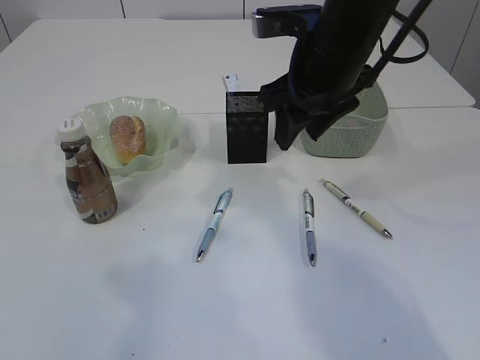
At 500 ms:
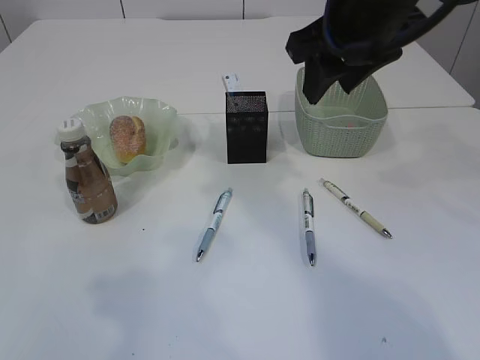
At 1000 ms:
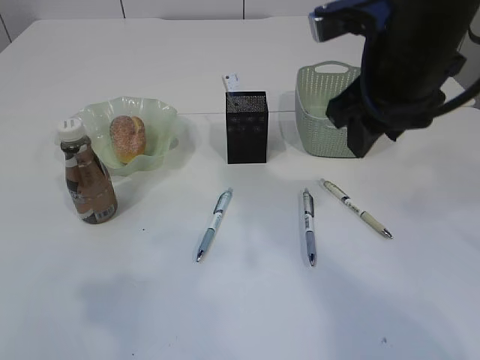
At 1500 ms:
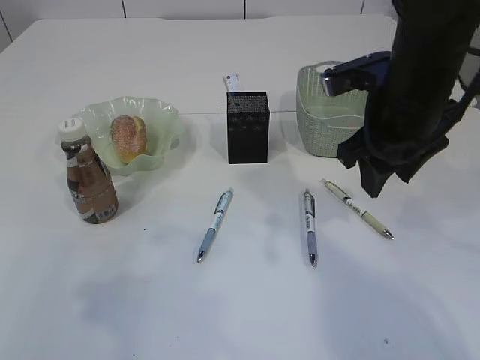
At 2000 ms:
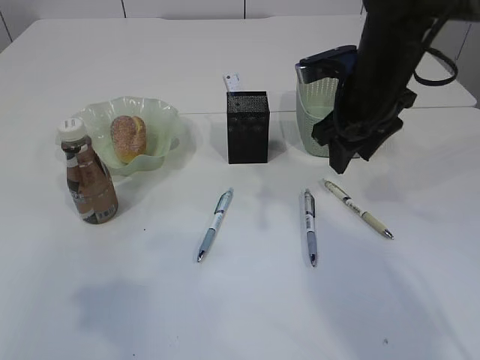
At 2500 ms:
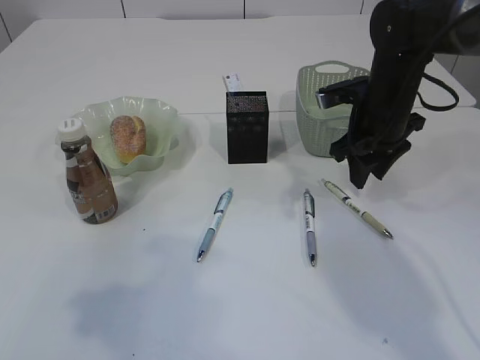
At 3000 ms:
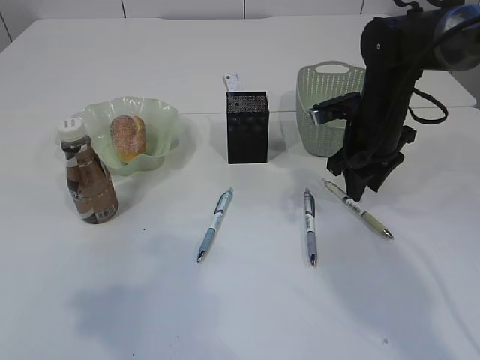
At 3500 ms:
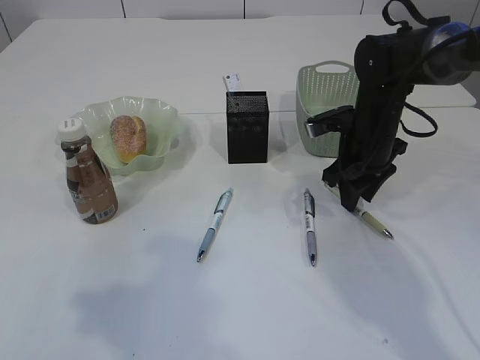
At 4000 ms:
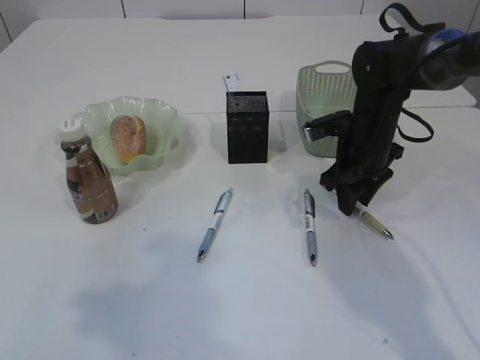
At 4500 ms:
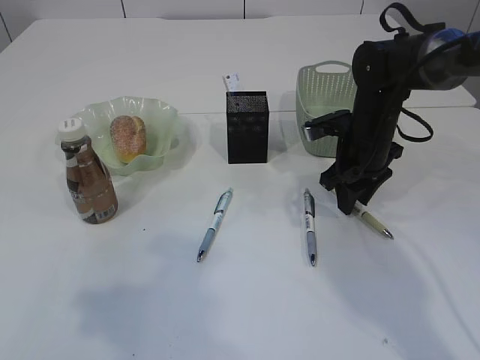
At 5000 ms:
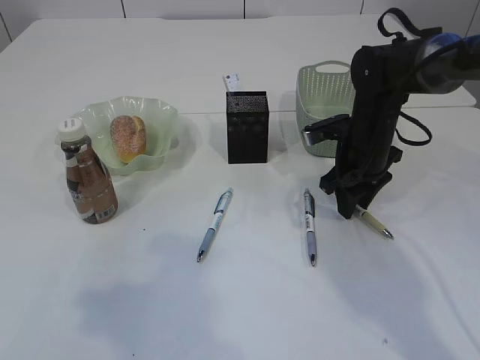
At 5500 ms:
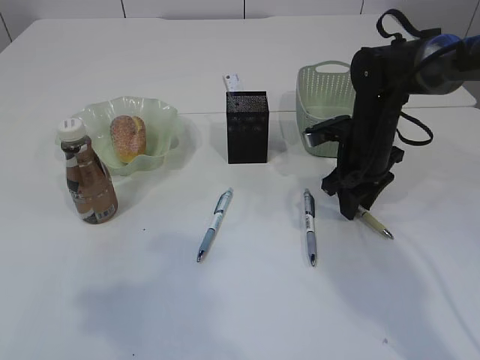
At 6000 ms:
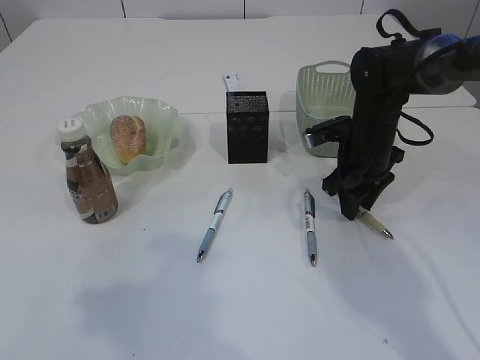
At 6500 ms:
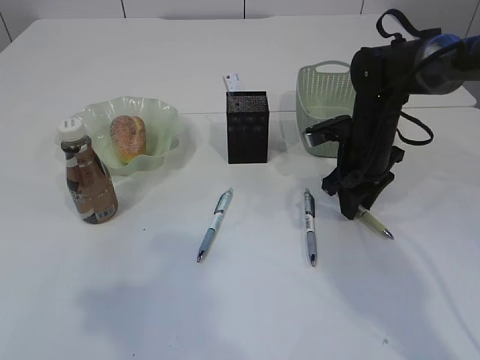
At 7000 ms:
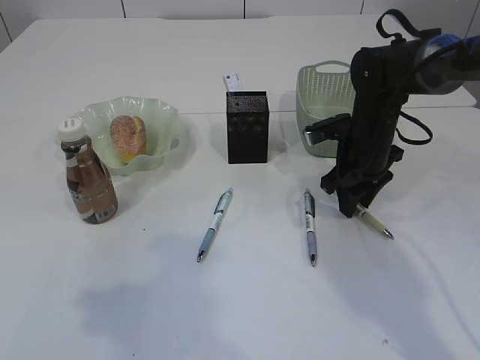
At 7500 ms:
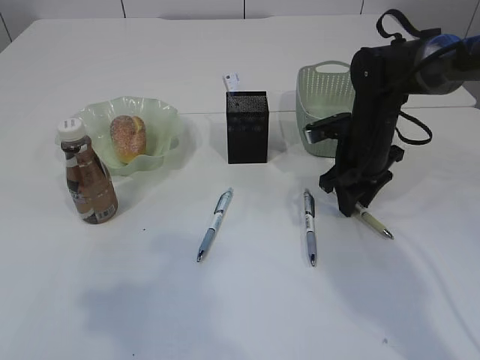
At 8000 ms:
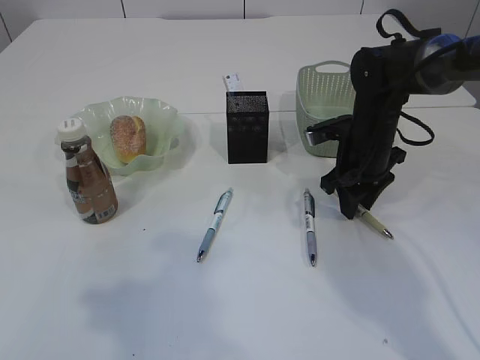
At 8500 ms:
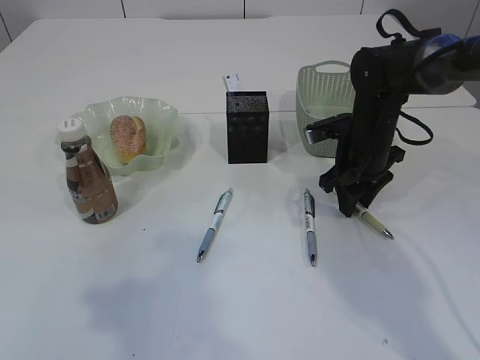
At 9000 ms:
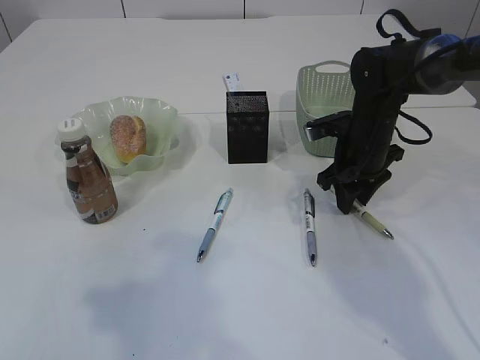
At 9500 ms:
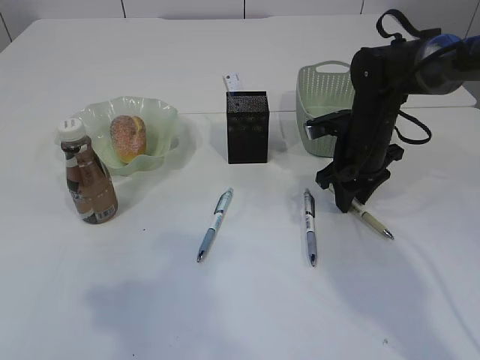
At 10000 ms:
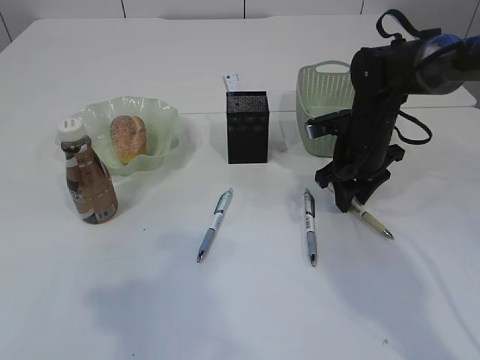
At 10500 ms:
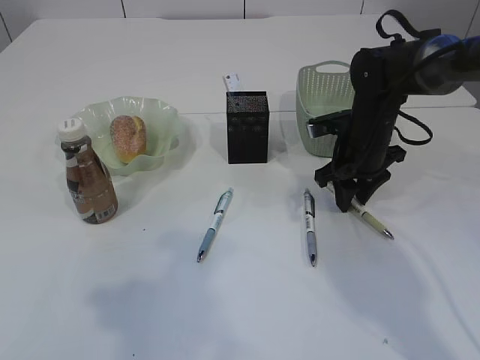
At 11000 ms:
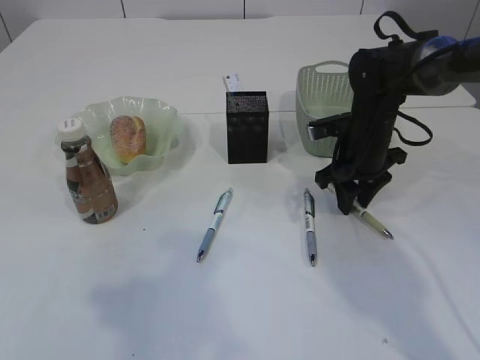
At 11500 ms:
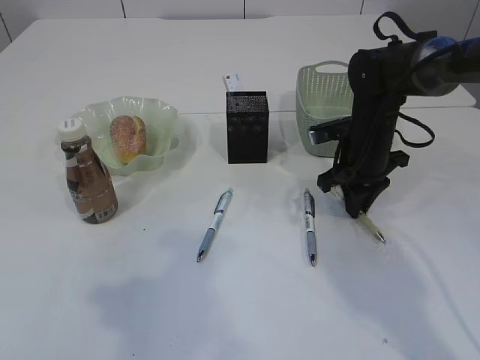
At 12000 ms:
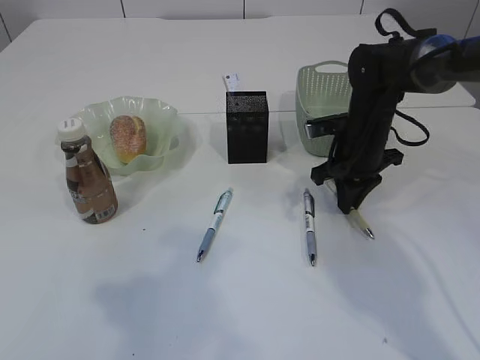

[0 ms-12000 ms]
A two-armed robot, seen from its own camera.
0 ms to 2000 ms: The right gripper shifts about 10 cm to the right and downward.
2000 ms to 4000 ms: The right gripper travels downward by approximately 10 cm.
4000 ms to 8000 ms: Both grippers stay put.
8000 ms to 10000 ms: The grippers make only small movements.
10000 ms to 12000 ms: The right gripper closes.

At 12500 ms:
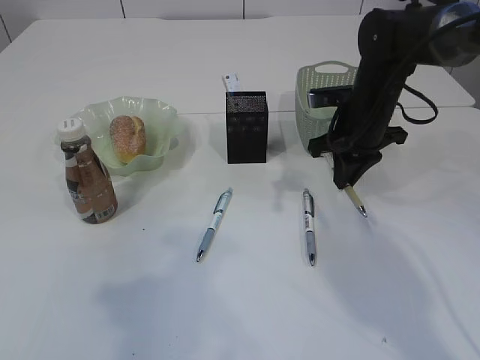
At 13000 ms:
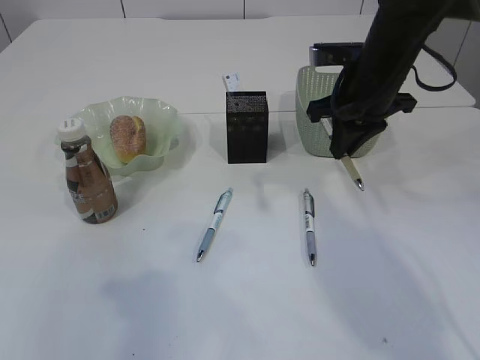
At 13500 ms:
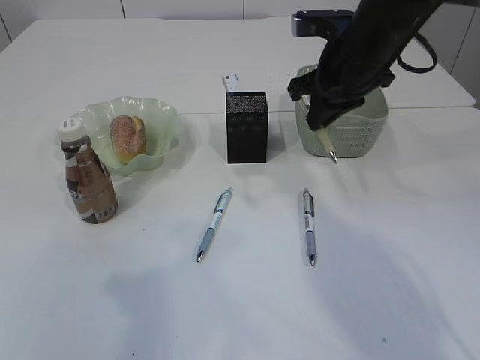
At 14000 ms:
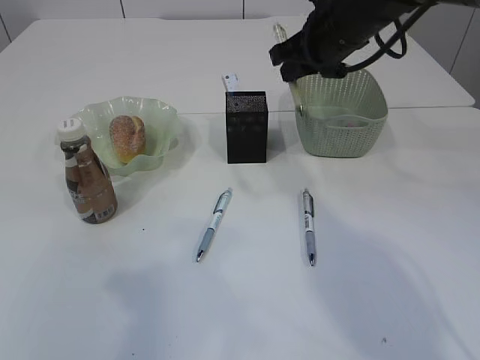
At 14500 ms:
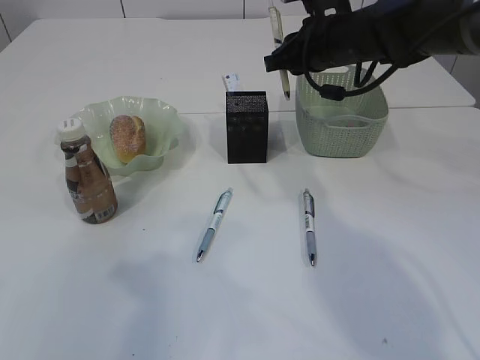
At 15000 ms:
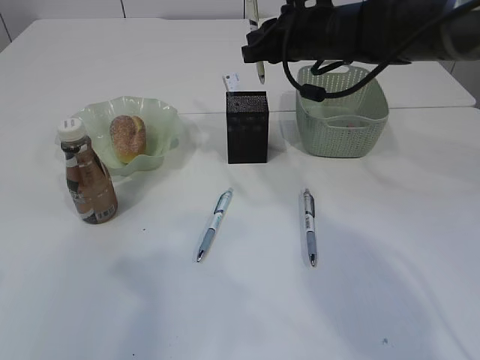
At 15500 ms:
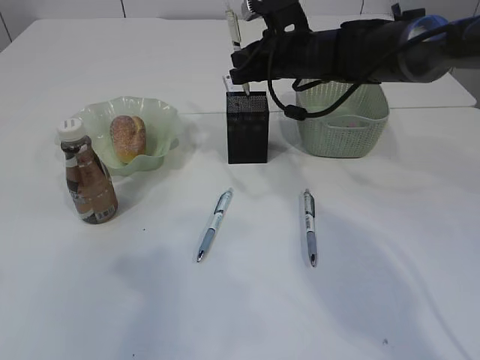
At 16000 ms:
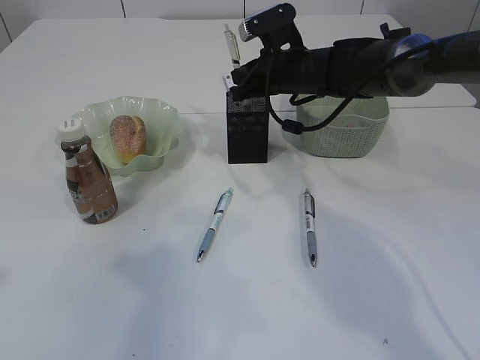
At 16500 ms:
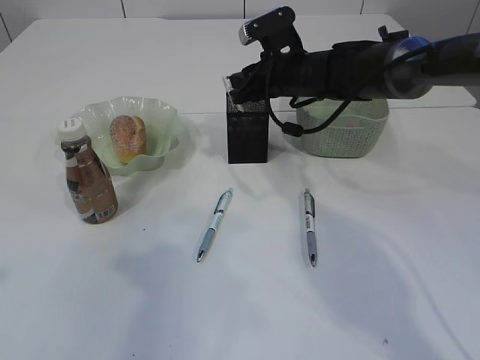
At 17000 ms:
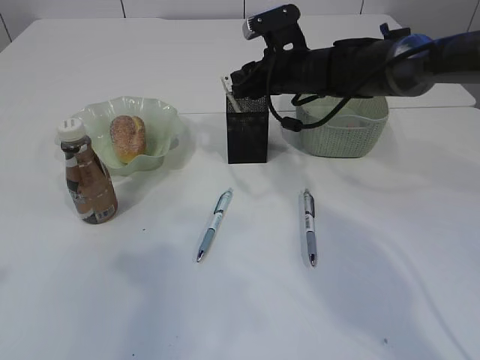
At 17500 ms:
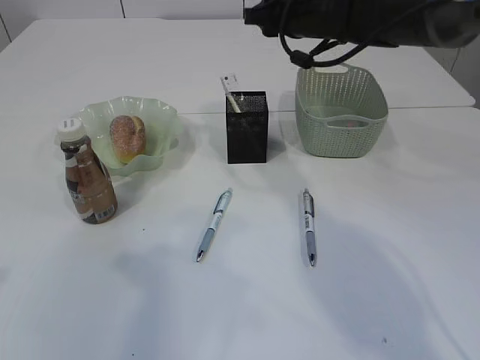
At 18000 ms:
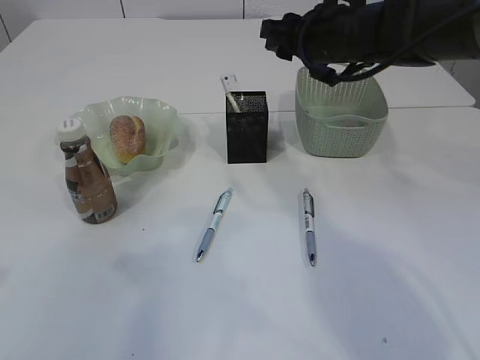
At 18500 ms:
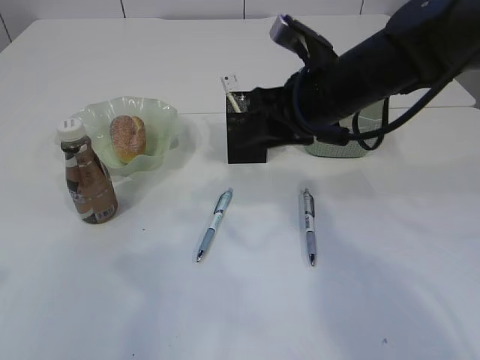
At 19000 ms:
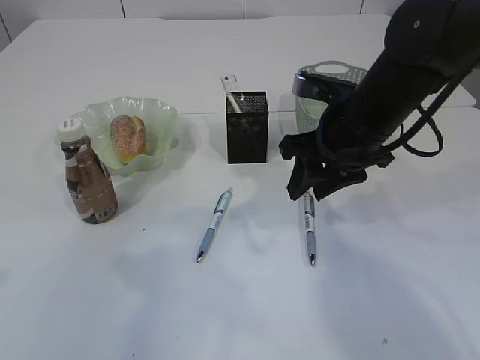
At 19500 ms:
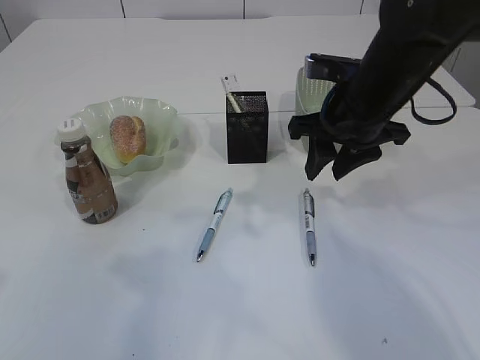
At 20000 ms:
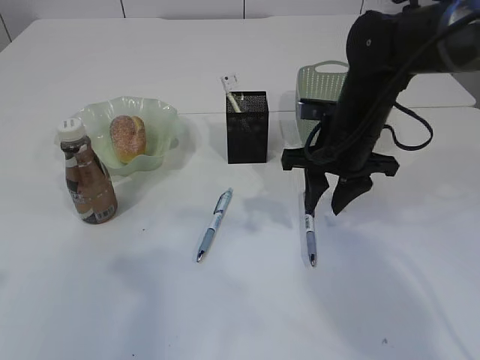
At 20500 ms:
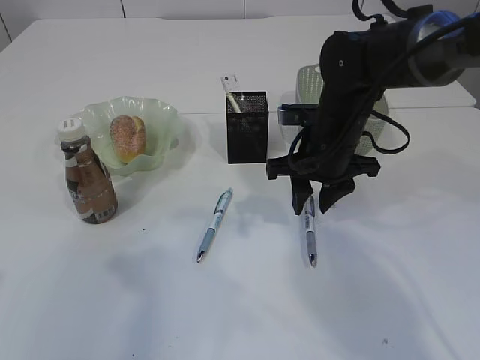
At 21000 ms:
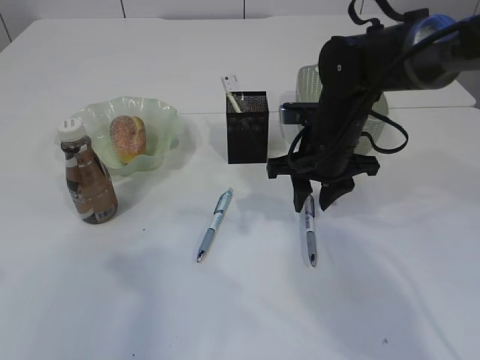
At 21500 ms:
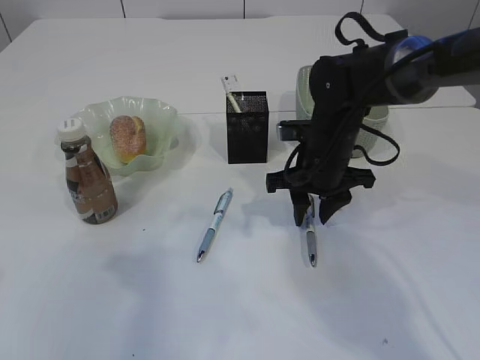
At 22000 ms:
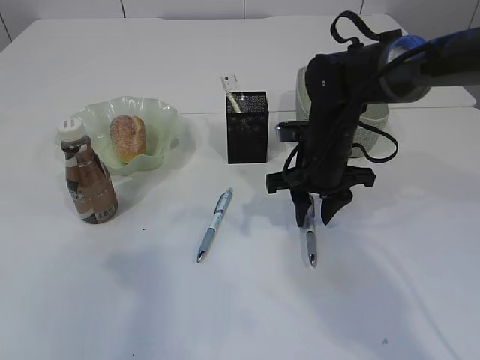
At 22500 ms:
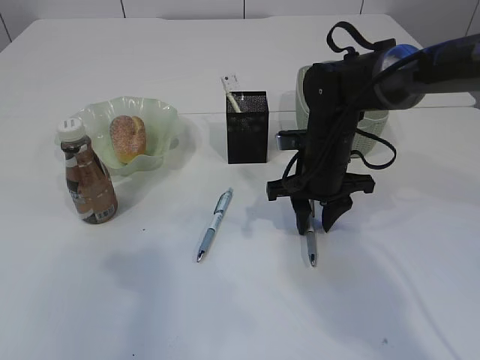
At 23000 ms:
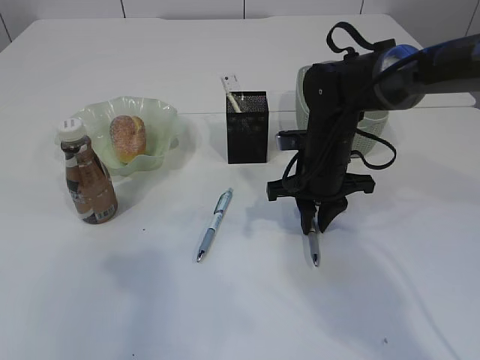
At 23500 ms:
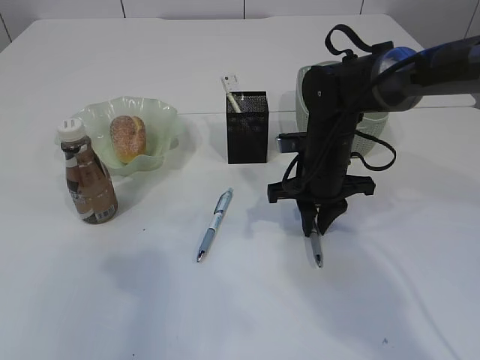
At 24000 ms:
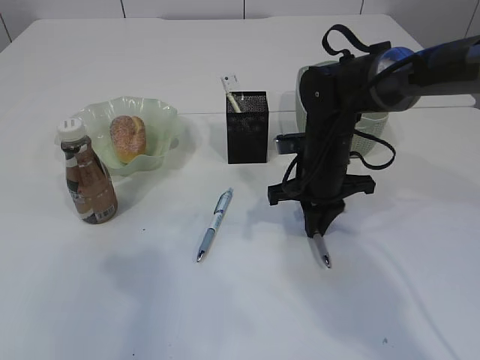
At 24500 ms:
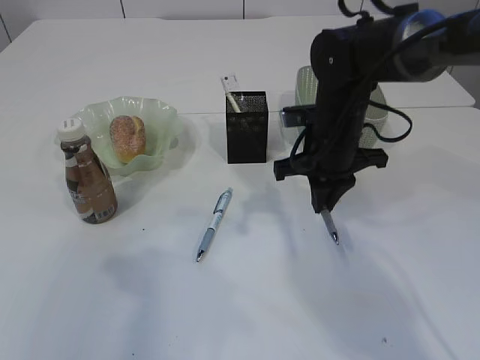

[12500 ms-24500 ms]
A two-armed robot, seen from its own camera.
Step, 13500 ms to 18000 ms: Place the pen into the pen holder.
12500 ms to 14500 ms: The right gripper goes some 10 cm upward.
14500 ms to 16500 ms: The right gripper travels downward by about 5 cm.
16500 ms to 18500 ms: The right gripper is displaced backward by some 10 cm.
18500 ms to 20500 ms: The right gripper travels downward by approximately 5 cm.
20500 ms to 22500 ms: The grippers move only a little.
22500 ms to 24500 ms: The right gripper closes.

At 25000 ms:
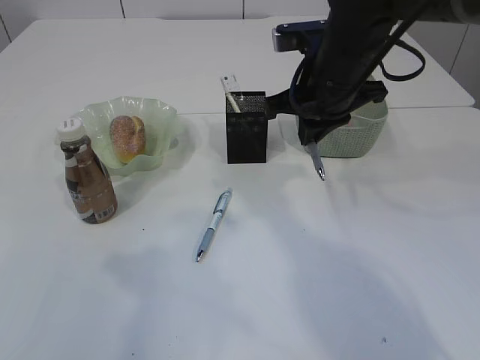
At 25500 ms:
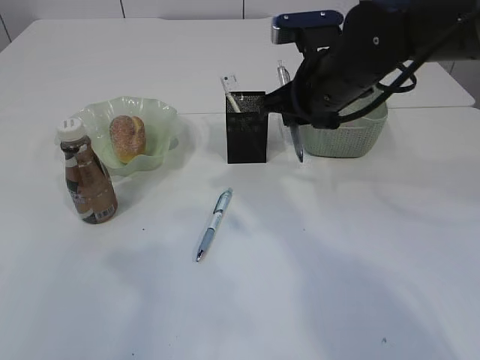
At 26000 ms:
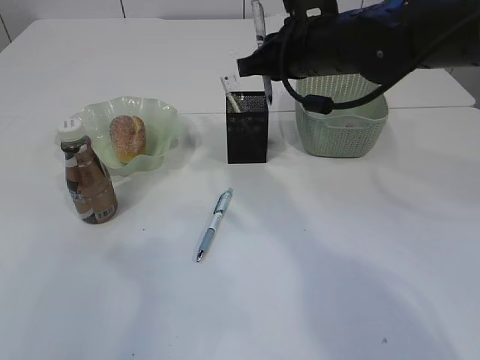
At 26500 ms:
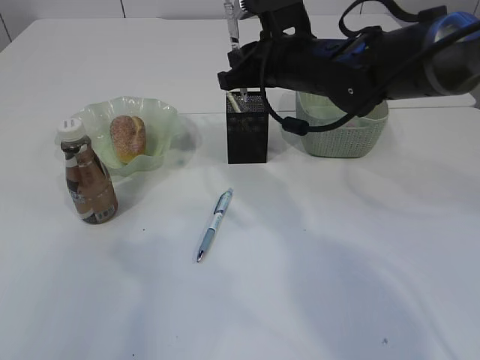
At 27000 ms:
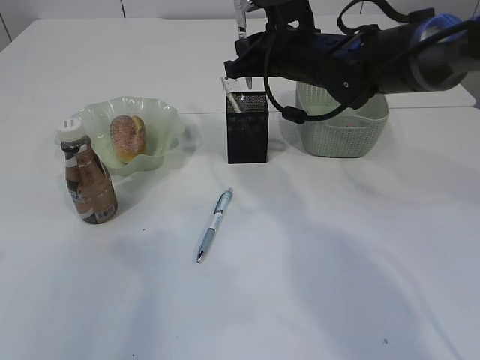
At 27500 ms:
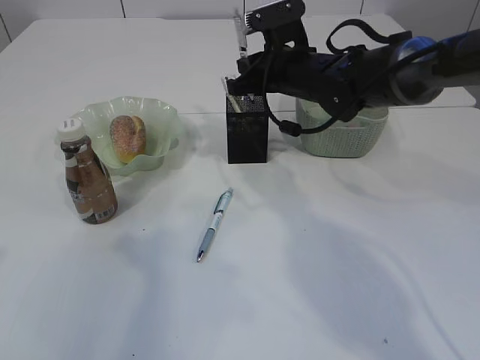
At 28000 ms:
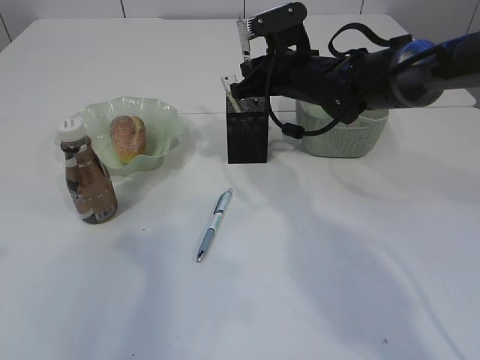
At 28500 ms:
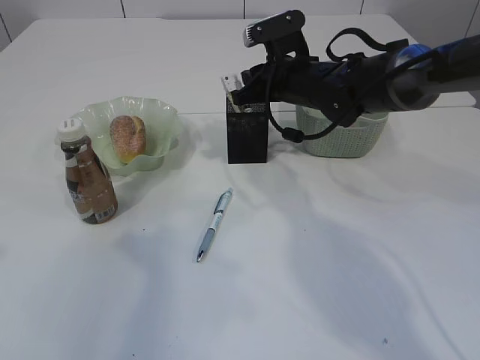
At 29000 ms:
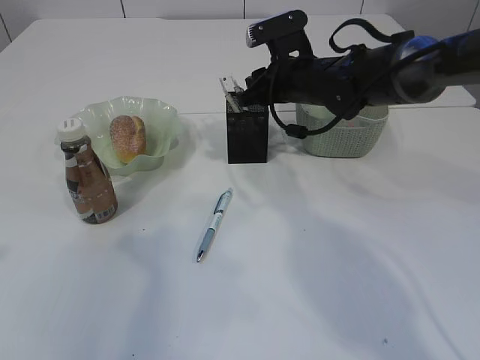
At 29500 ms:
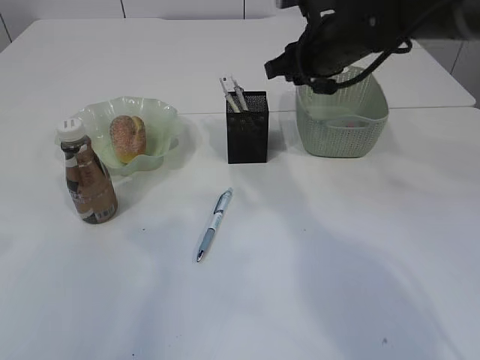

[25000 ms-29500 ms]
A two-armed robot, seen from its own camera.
Step, 25000 ms to 29000 ms: Place the pen into the pen holder.
25000 ms to 27000 ms: The right gripper goes approximately 5 cm forward.
27000 ms to 29500 ms: The right gripper opens its fingers.
